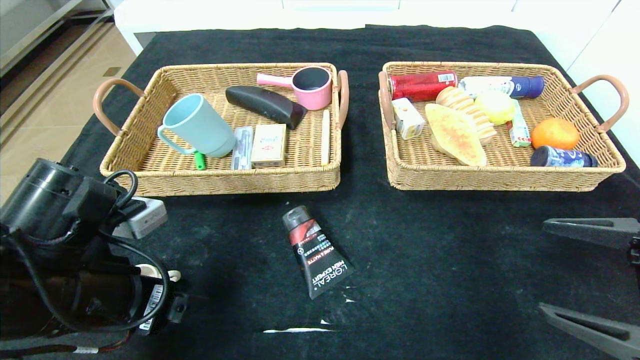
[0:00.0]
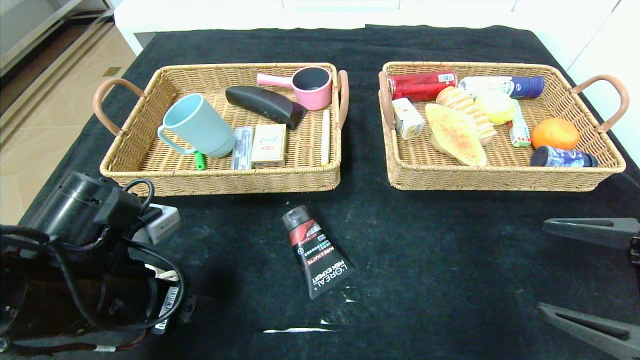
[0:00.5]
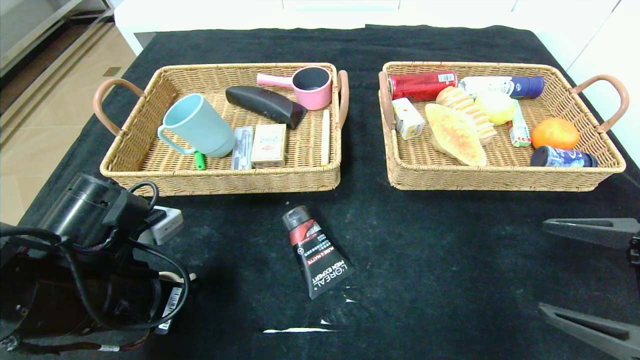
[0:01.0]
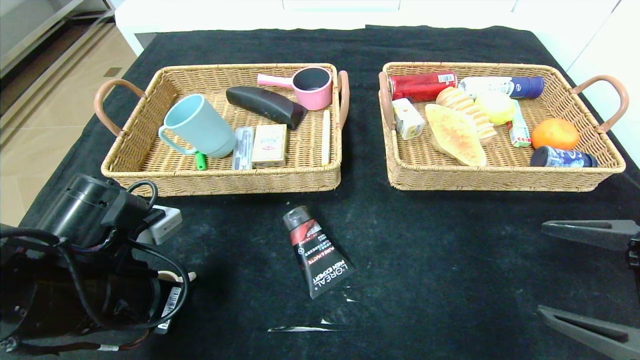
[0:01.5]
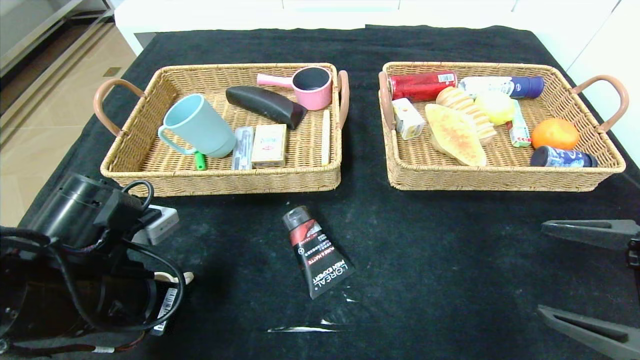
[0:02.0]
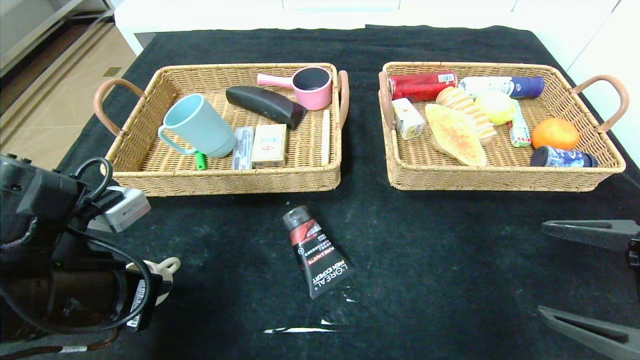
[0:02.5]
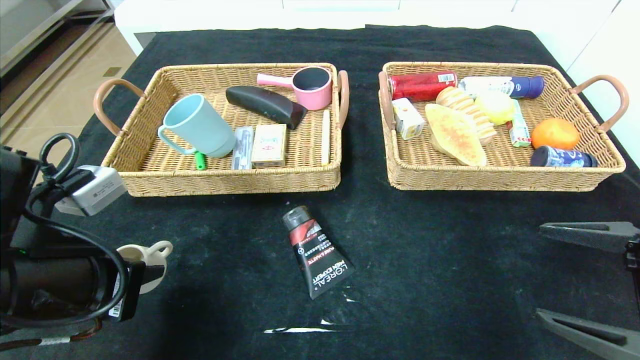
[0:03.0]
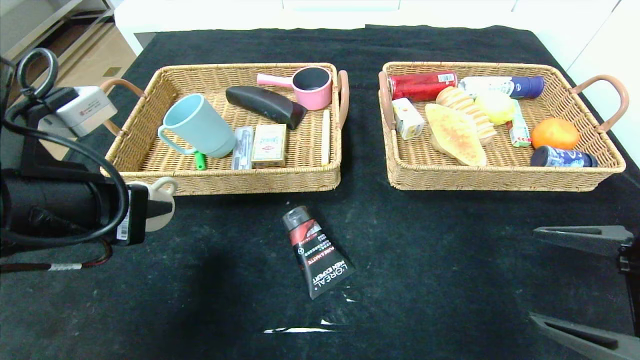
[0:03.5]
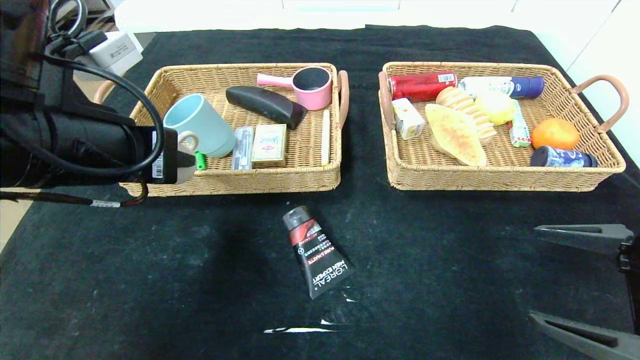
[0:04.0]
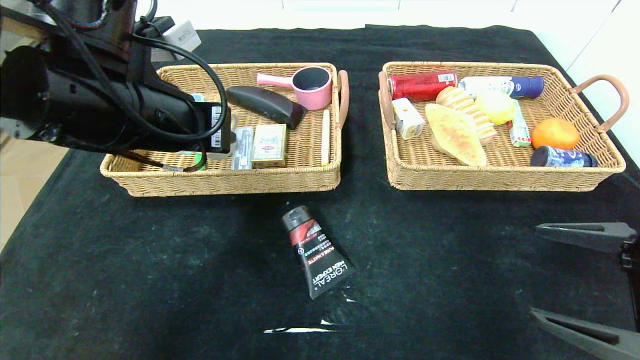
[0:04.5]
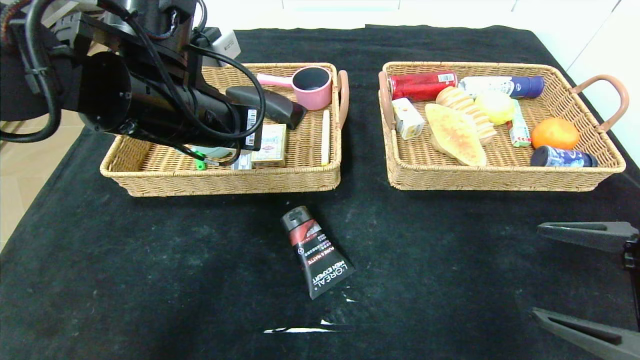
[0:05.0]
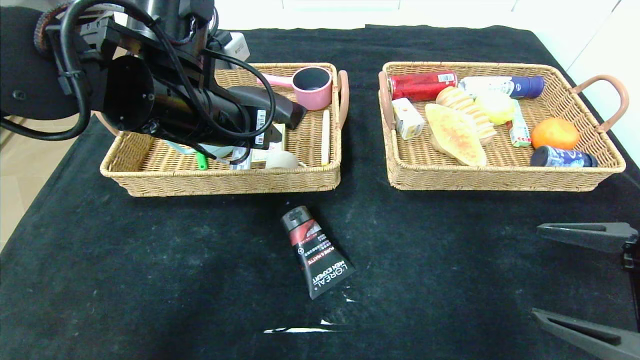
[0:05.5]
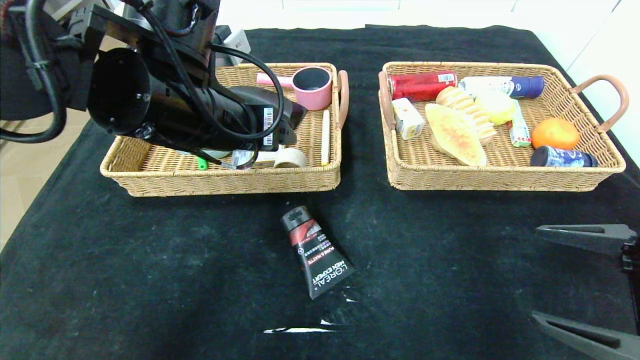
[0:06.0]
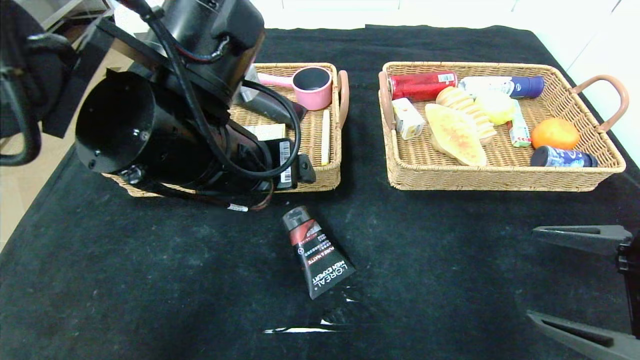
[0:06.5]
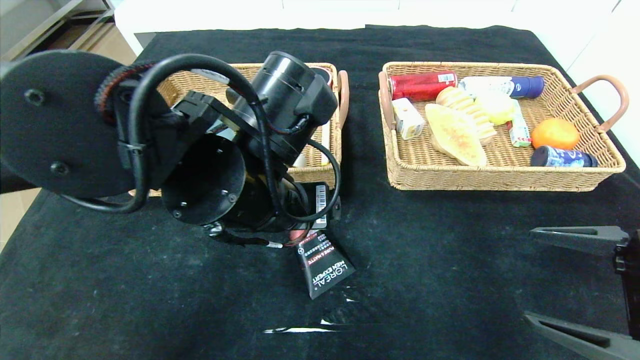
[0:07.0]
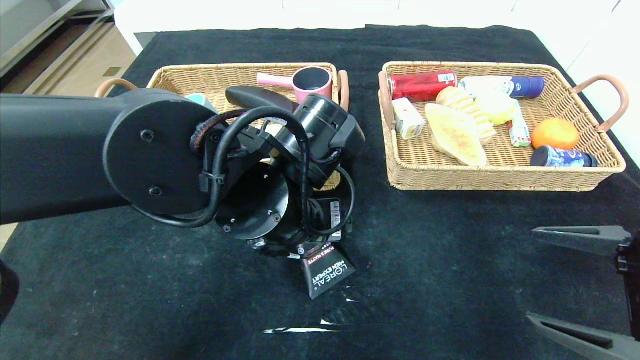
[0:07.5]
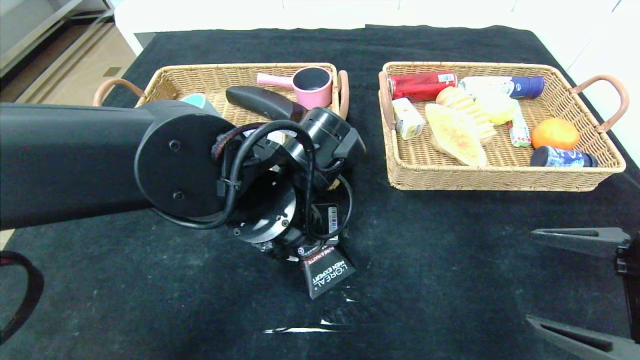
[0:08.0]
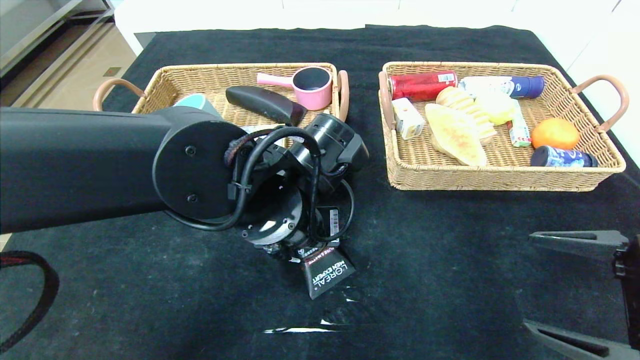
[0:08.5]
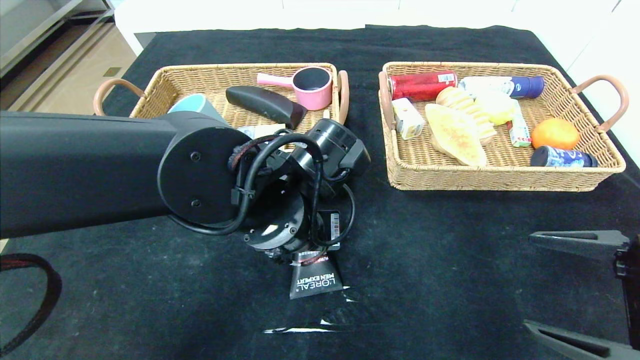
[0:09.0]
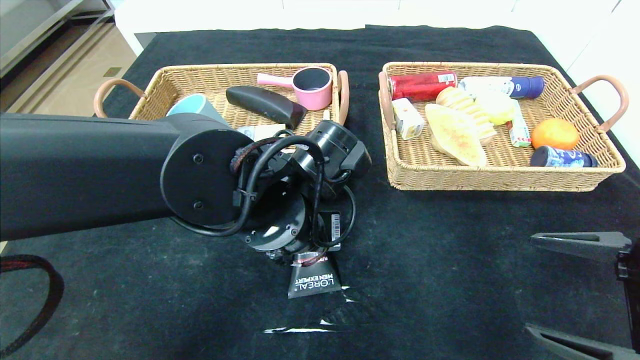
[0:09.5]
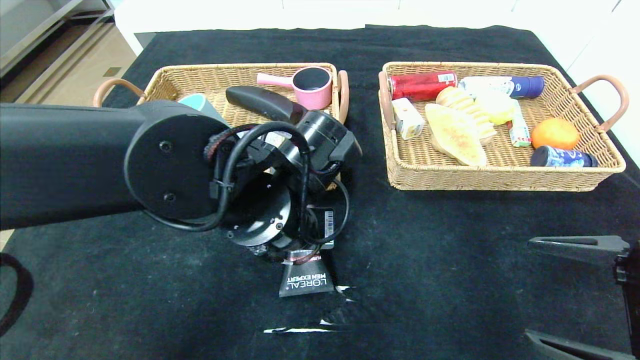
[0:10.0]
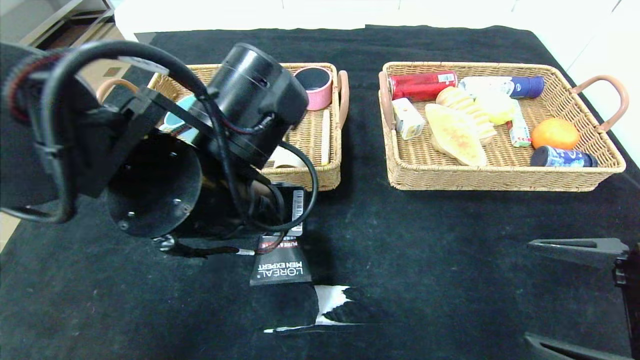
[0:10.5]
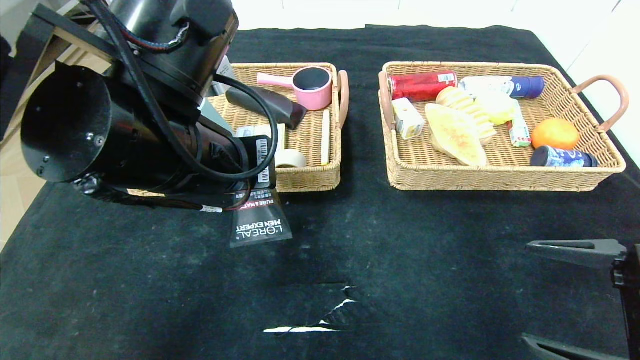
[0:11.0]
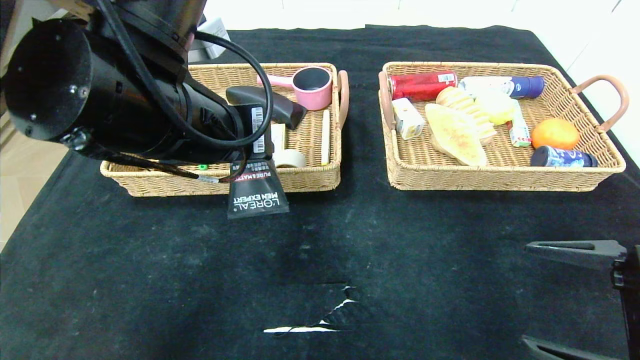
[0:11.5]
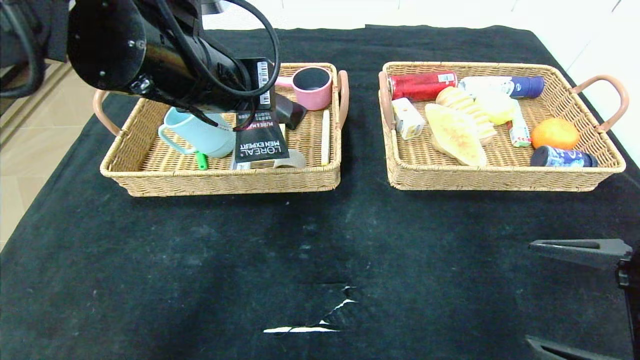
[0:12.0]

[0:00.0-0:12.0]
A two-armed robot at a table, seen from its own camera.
Step, 0:00.0 to 0:05.0: Grasp the grey cup and put it in the left basket.
0:00.0 to 0:02.0: The left gripper closes its fingers.
0:02.0 to 0:04.0: The left gripper shifts about 15 cm upward.
0:04.0 to 0:06.0: The left gripper goes about 10 cm to the right and forward, and opens.
0:06.0 to 0:08.0: The left gripper moves downward and to the right, about 10 cm.
0:08.0 to 0:10.0: The left gripper closes up.
0:10.0 to 0:12.0: The left gripper is displaced upward and to the left by some 15 cm.

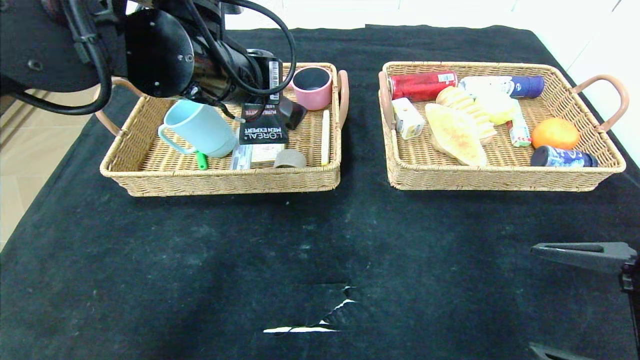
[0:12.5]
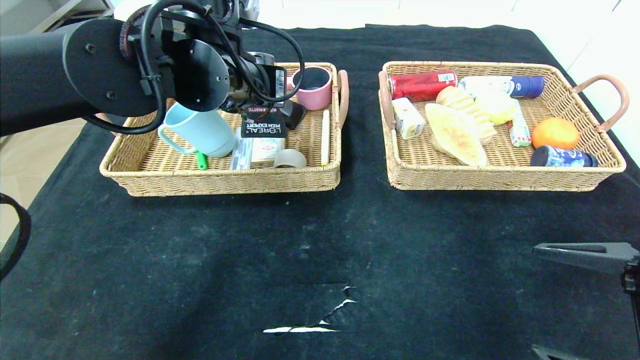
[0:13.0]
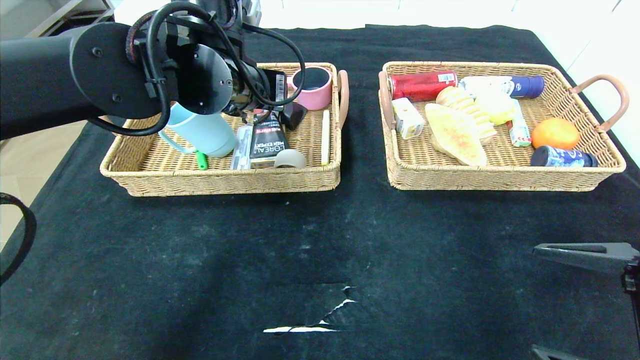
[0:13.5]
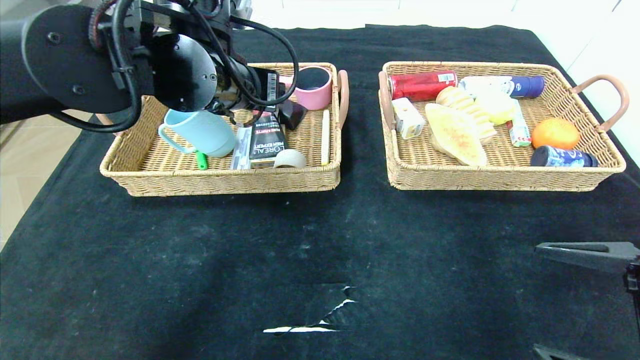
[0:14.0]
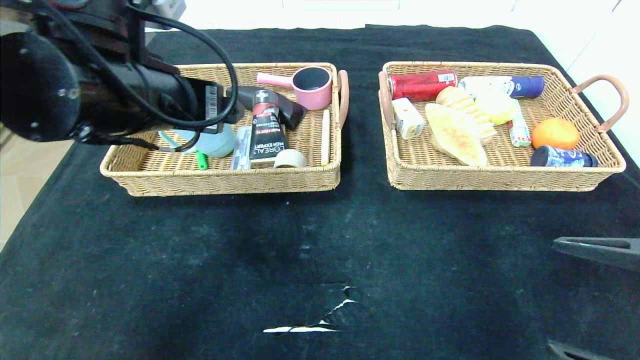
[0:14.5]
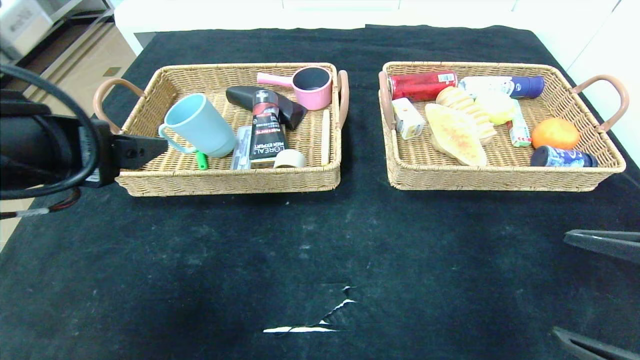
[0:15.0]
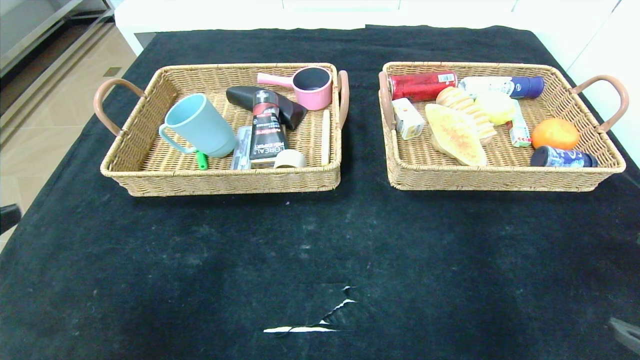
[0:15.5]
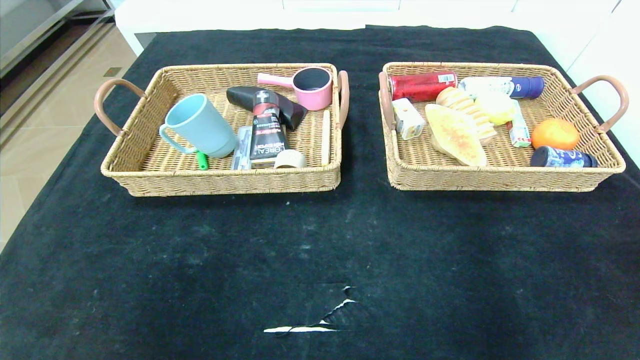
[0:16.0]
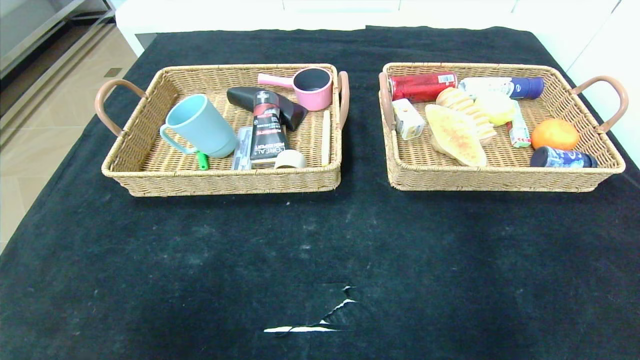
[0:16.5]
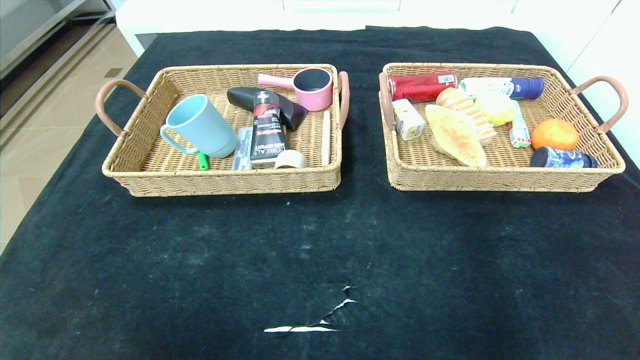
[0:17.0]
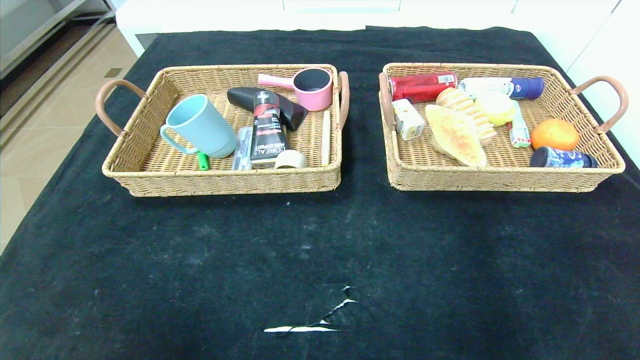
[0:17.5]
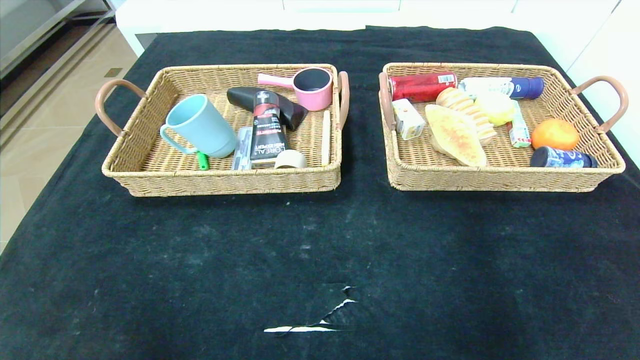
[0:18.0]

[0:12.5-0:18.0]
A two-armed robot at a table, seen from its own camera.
0:12.5 to 0:14.5: The left gripper shifts roughly 5 cm backward, and opens up.
0:14.5 to 0:16.0: The left gripper travels backward and to the left by about 30 cm, while the right gripper travels backward by about 10 cm.
0:16.0 to 0:18.0: The two grippers go about 20 cm downward.

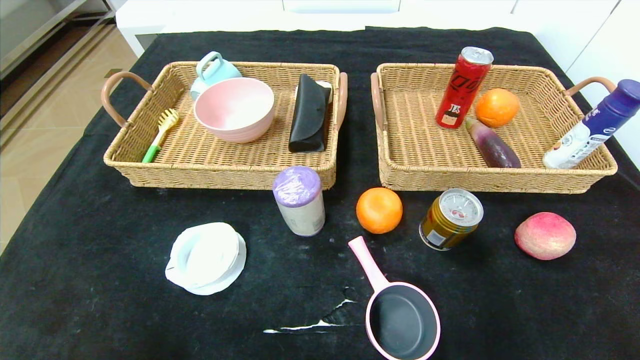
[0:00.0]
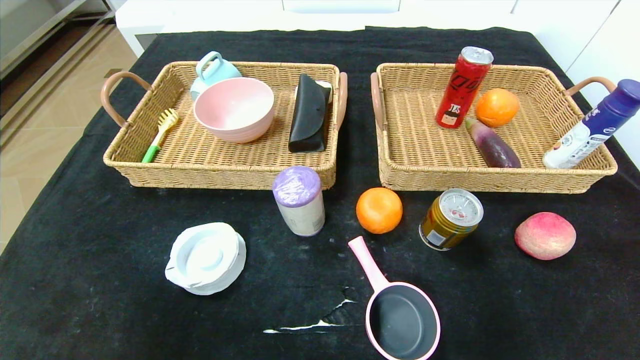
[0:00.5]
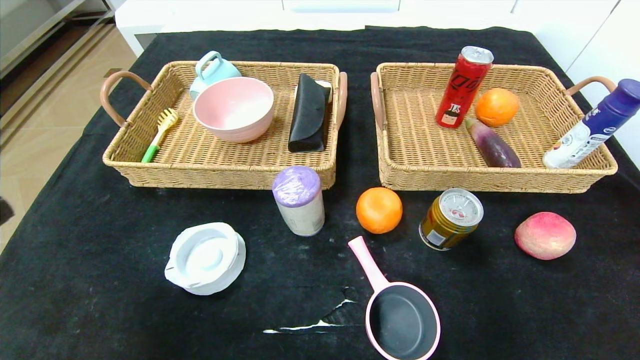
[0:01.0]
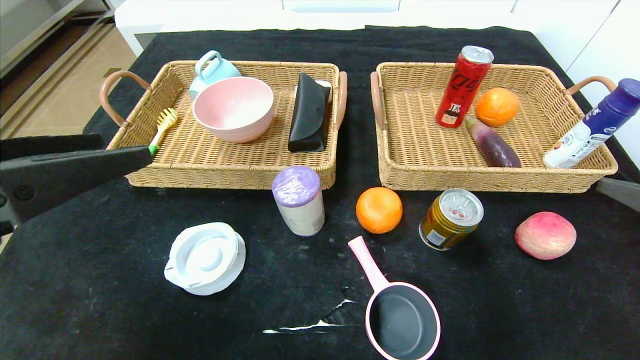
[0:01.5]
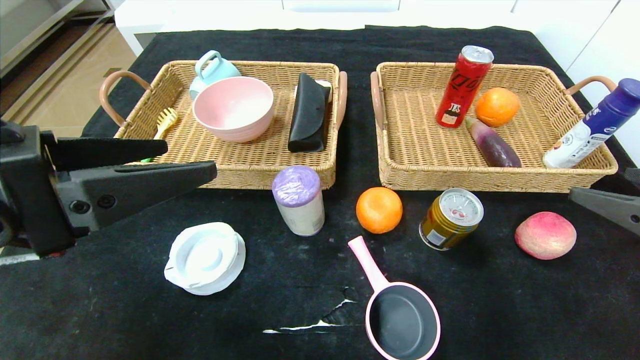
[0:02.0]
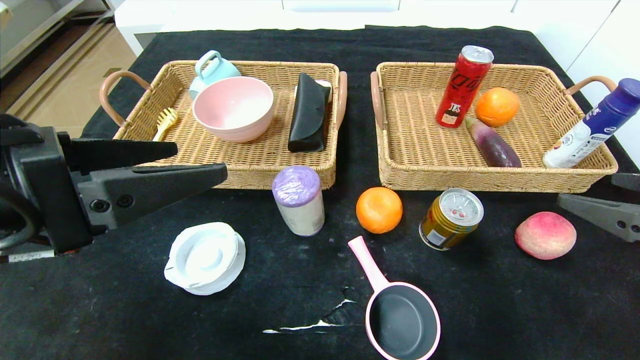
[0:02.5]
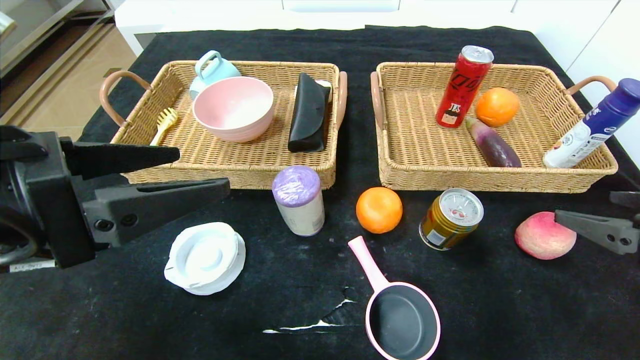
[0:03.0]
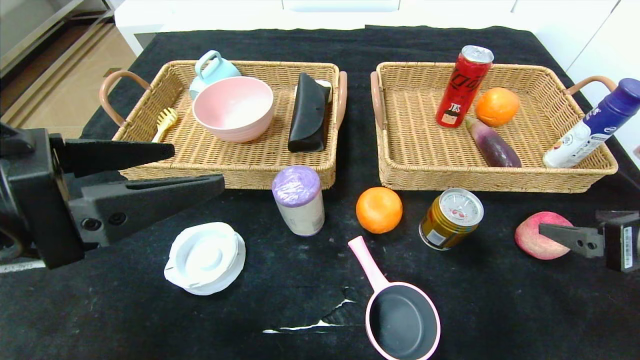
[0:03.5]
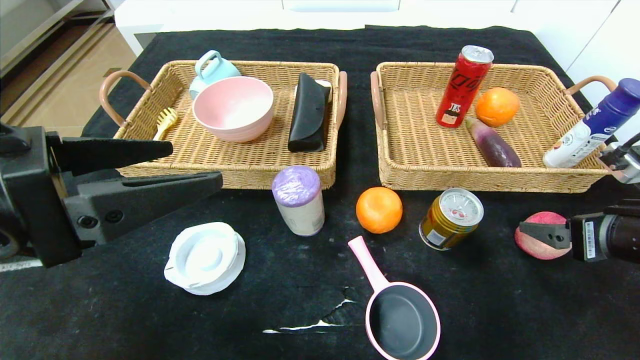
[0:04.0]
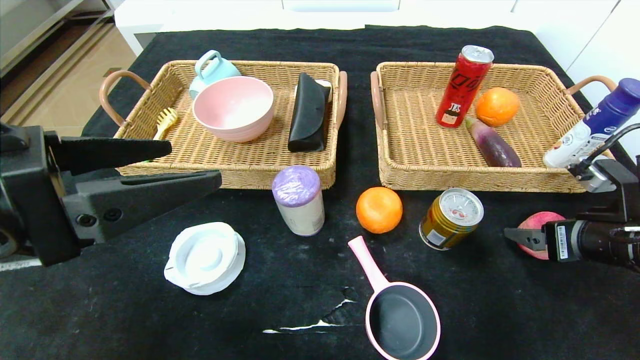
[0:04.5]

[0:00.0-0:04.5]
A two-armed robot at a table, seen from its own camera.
0:00.0 to 0:02.0: The right gripper travels forward and upward by about 25 cm. Meanwhile the left gripper moves upward and forward, some 25 cm.
0:02.0 to 0:04.5: The right gripper goes roughly 10 cm forward and downward.
